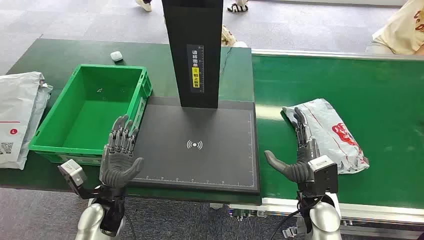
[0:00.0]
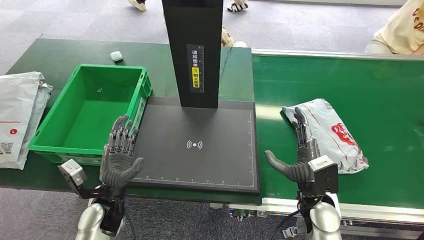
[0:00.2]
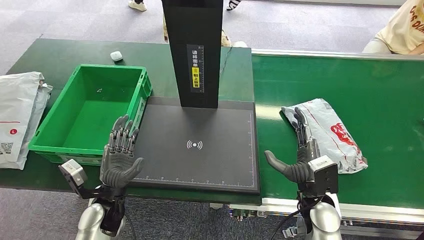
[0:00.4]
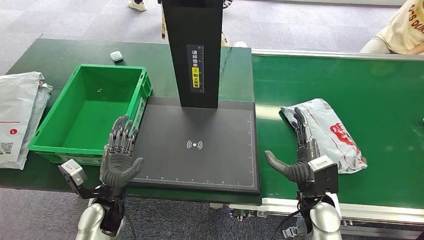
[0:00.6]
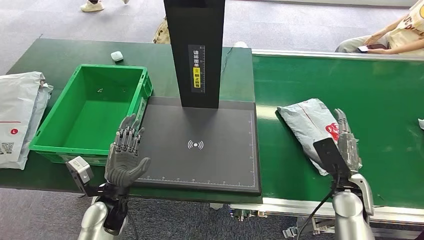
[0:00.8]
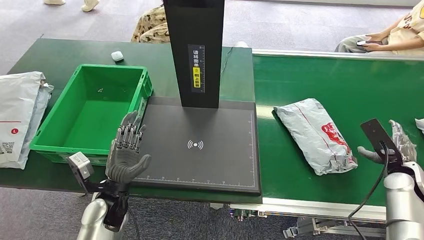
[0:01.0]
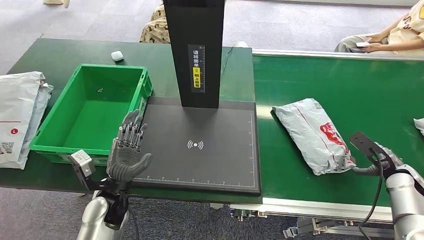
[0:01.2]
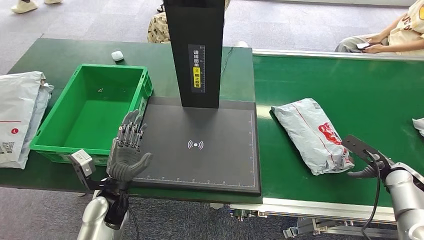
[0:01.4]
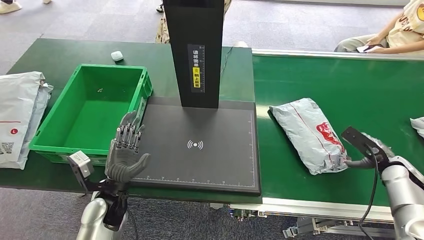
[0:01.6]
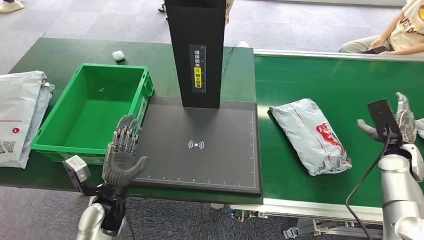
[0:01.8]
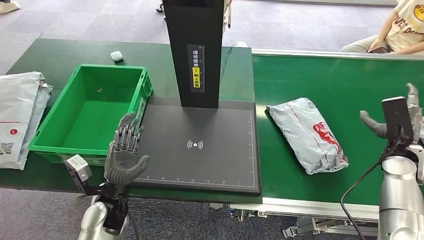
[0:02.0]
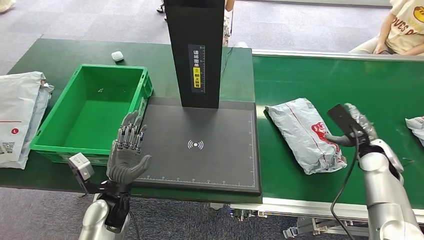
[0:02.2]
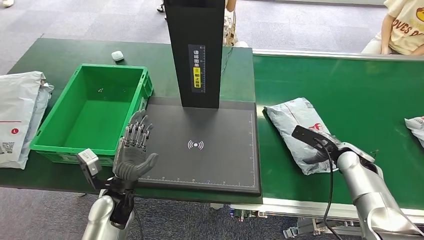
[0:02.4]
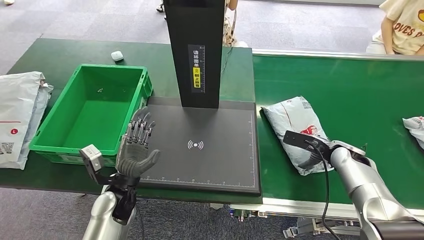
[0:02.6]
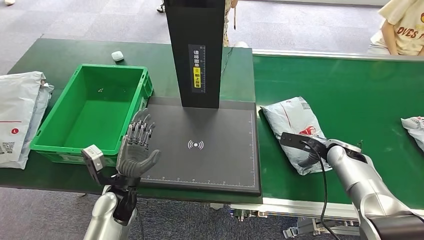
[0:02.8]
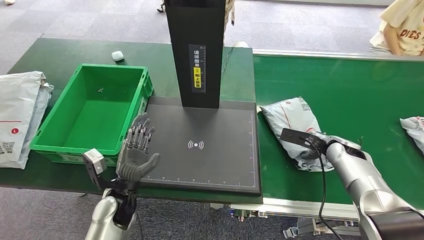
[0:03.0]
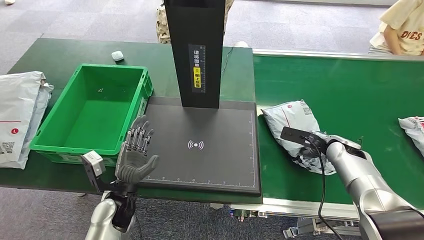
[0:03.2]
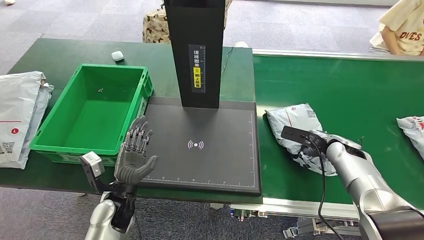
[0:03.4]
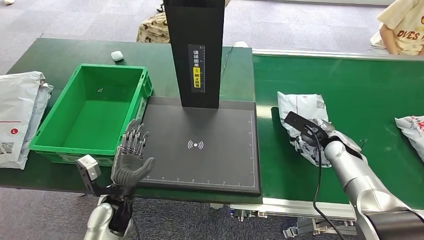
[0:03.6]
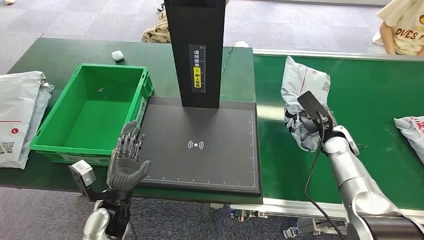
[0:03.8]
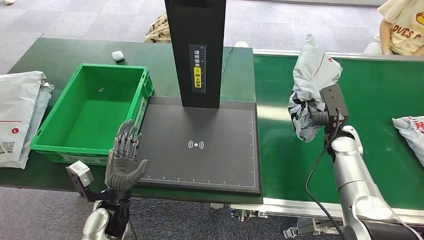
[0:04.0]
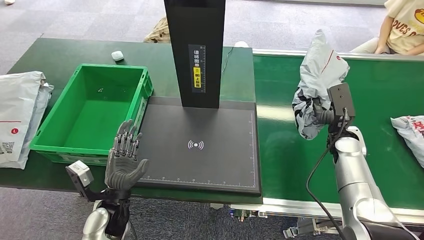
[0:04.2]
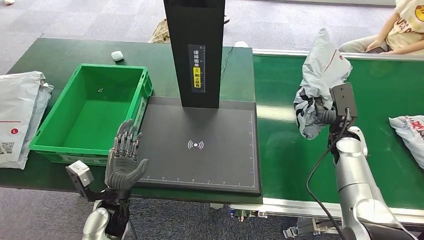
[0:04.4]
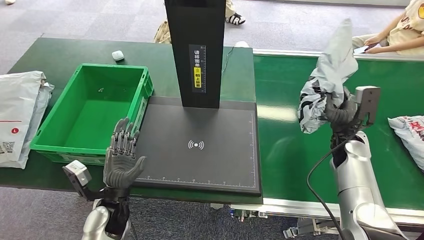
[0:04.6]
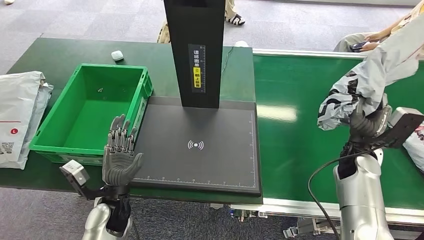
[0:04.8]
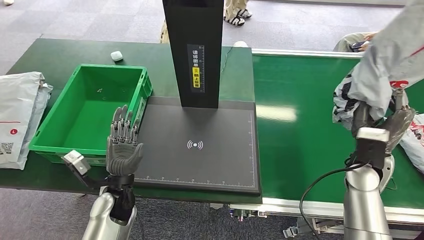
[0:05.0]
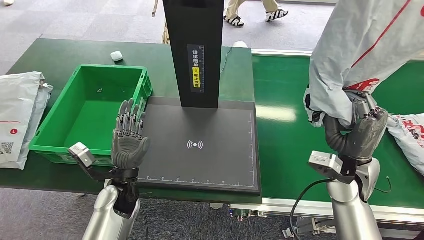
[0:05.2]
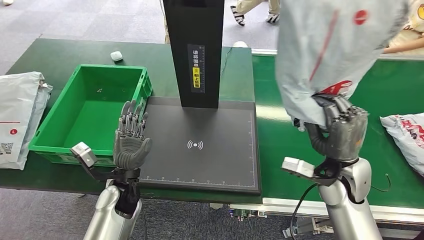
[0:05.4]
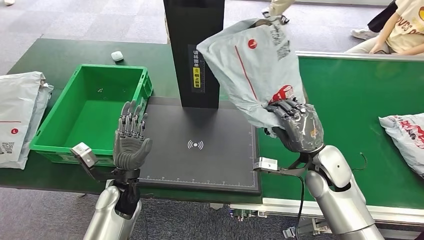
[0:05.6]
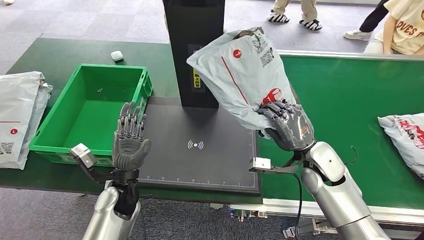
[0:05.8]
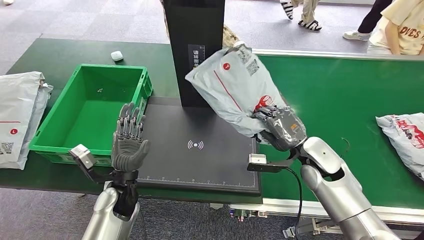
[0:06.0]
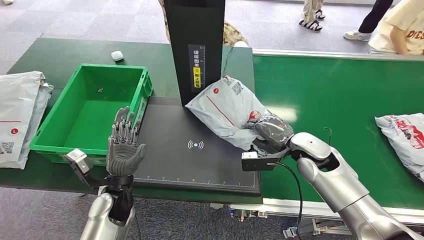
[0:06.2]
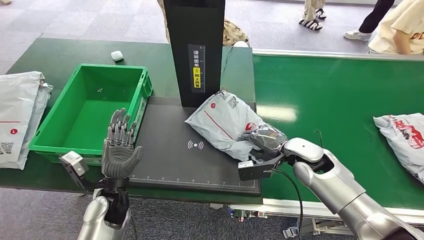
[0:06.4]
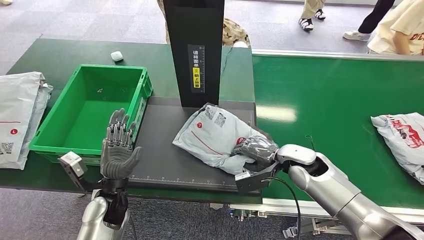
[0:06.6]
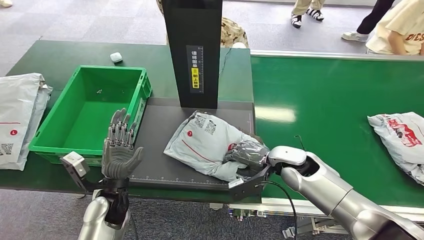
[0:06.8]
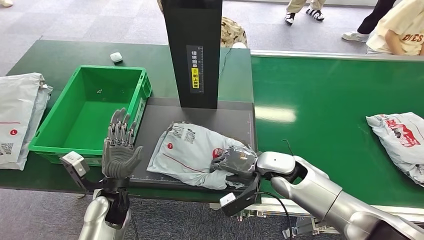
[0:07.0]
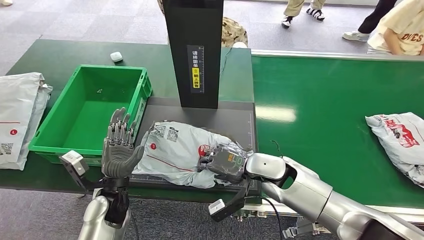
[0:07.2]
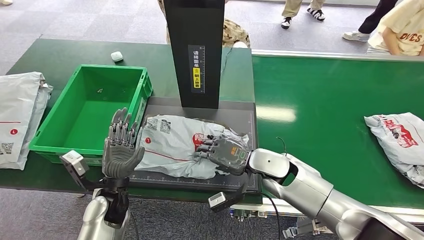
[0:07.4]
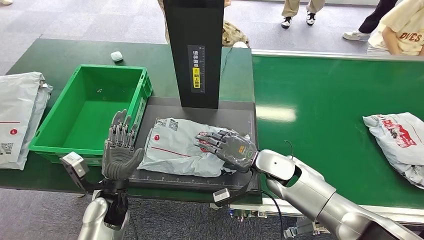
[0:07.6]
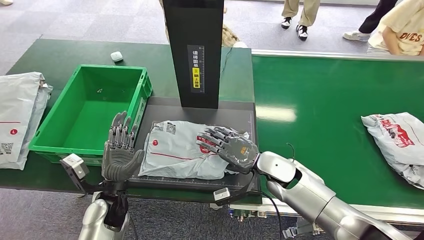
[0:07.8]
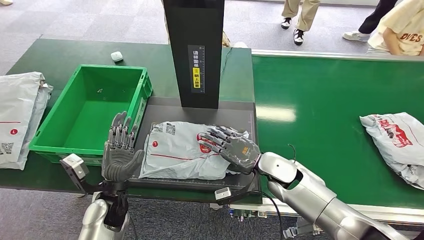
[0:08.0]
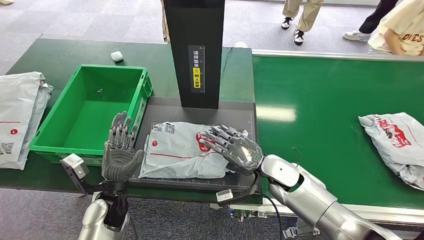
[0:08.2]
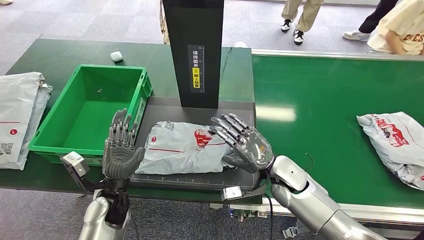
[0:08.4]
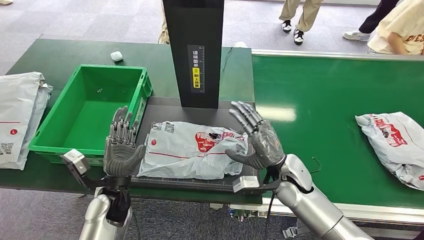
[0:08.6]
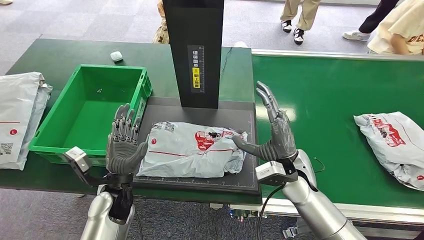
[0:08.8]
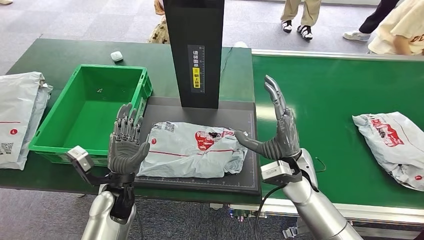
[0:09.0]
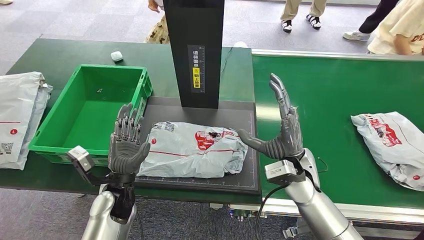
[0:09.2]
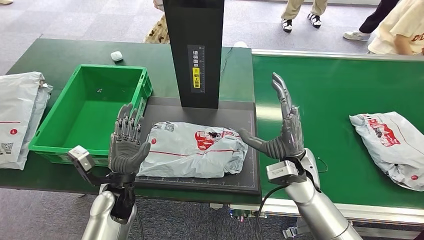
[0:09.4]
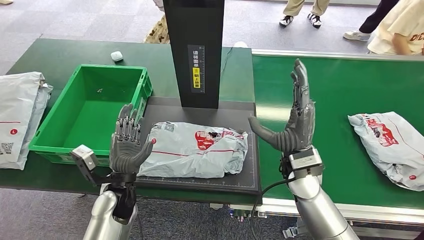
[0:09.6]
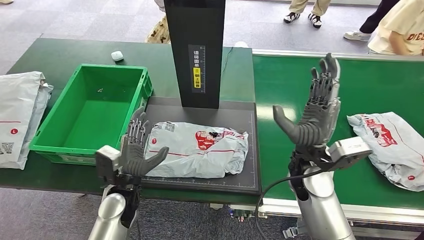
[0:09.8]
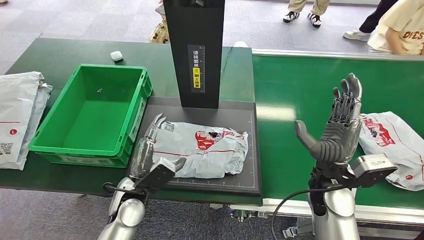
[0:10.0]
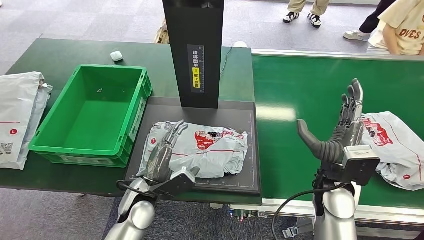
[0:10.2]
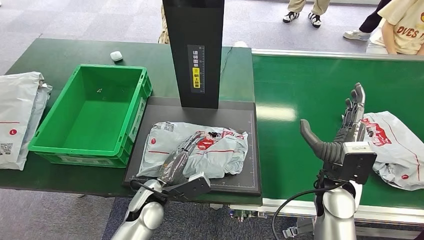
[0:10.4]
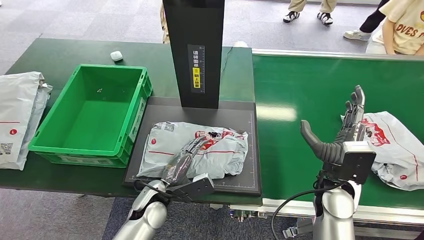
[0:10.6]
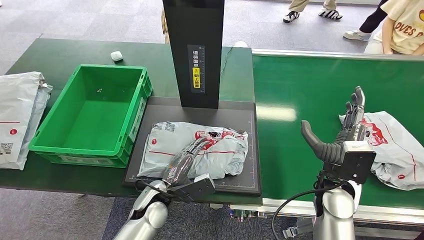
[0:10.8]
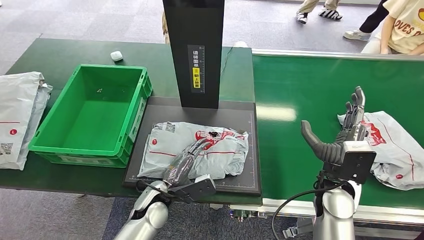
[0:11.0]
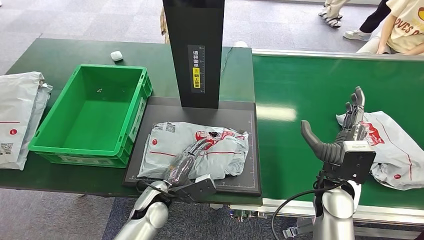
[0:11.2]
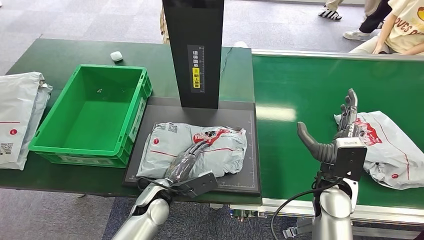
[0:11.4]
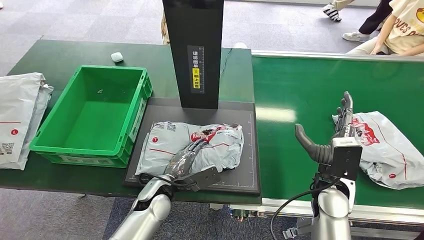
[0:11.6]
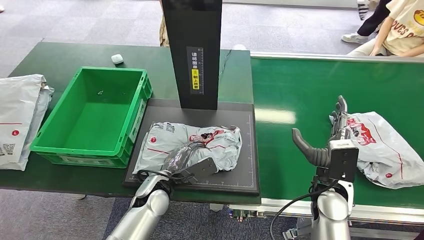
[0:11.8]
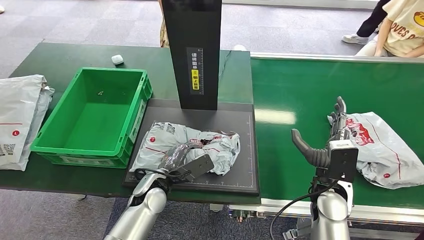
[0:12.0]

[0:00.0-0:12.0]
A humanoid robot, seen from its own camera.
Step, 0:00.0 to 0:04.8: Pick up the package from the conveyor belt.
Step, 0:05.0 to 0:10.0: Place the package onto the inbound machine.
0:01.6 to 0:03.0: The right hand shifts some 15 cm to the left and forward.
0:07.6 to 0:09.0: The right hand changes place by approximately 5 cm.

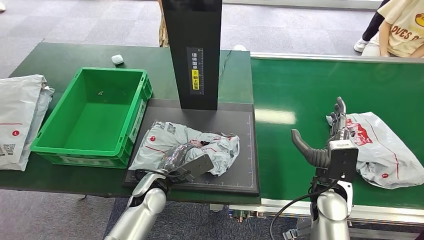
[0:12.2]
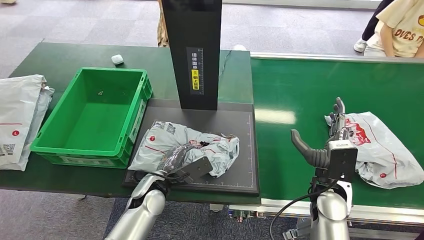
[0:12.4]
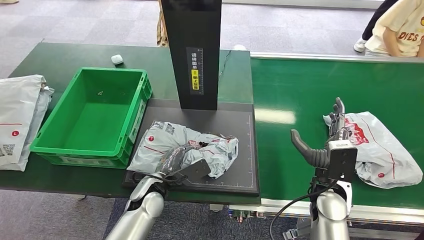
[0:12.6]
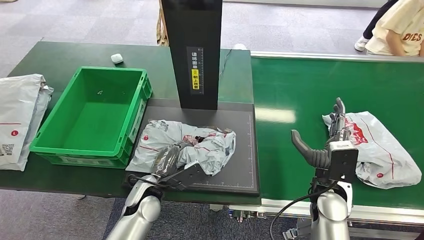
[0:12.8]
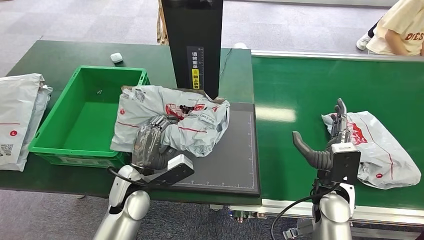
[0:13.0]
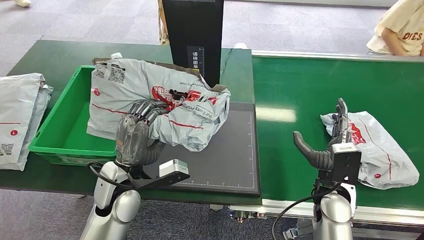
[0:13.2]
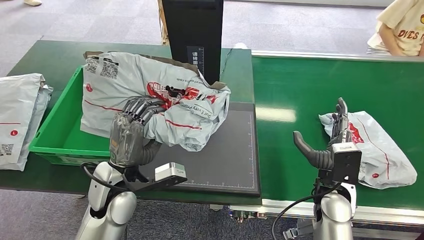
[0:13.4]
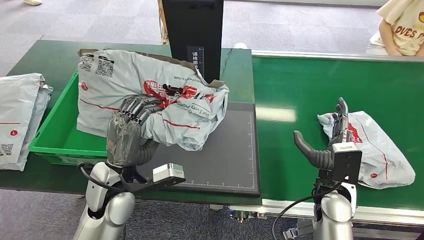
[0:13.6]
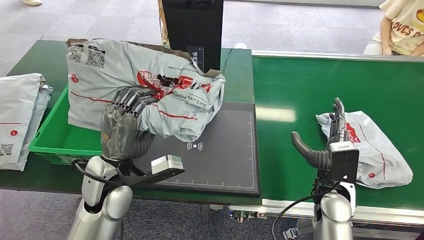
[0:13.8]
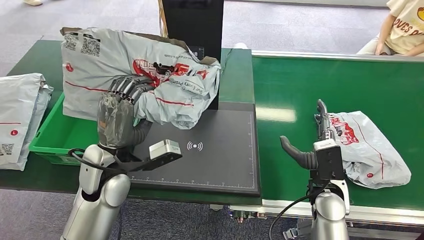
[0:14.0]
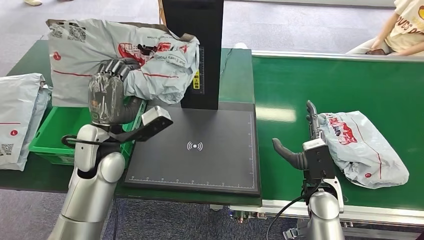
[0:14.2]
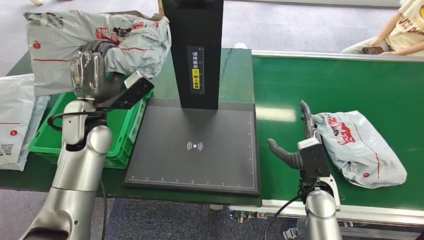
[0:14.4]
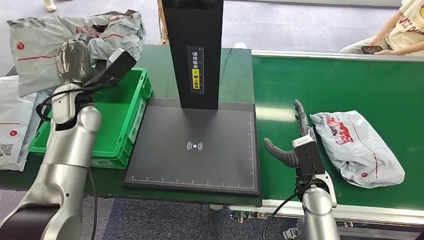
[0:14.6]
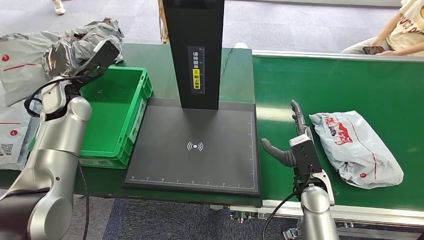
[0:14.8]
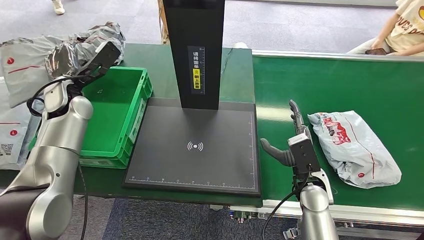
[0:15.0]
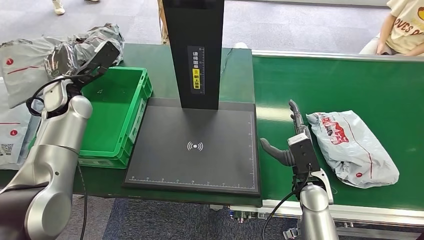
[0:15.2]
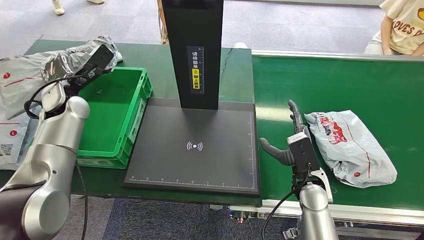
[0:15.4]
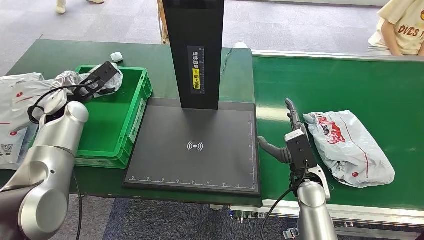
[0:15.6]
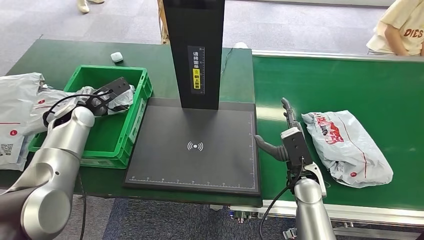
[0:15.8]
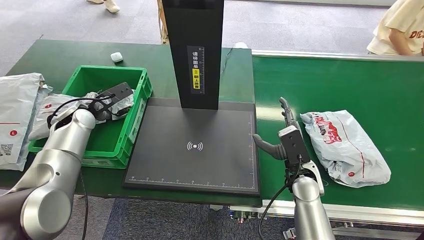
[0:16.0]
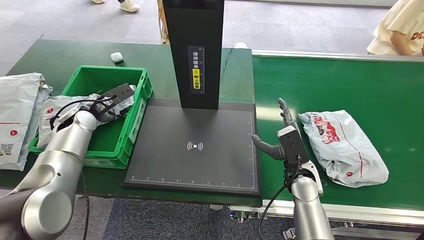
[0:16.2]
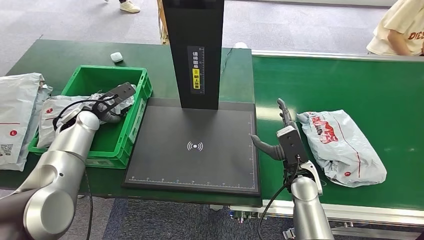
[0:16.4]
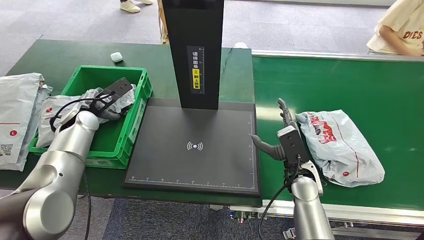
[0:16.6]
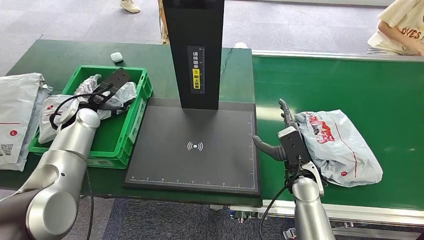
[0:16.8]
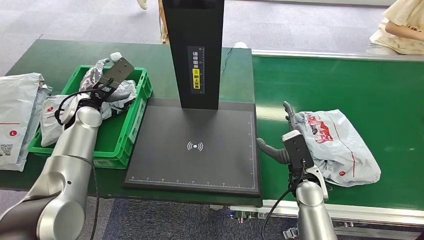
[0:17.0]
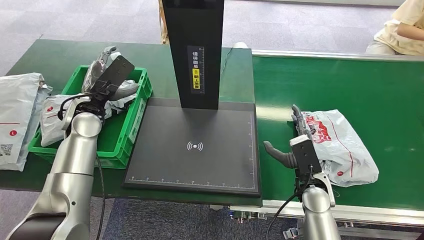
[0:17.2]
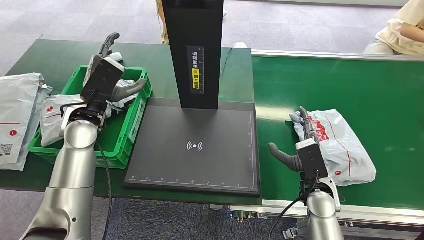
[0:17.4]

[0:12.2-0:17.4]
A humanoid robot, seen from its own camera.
Step, 0:13.4 to 0:17.4: Place the package into the parcel locker.
